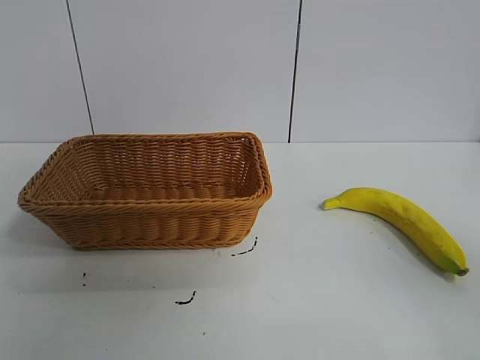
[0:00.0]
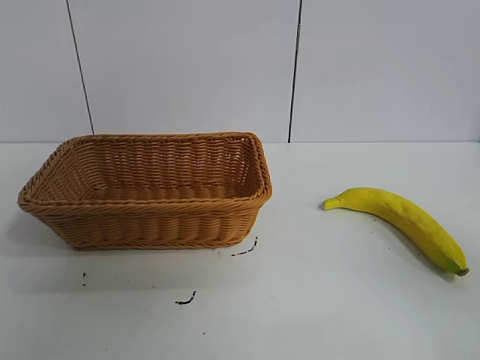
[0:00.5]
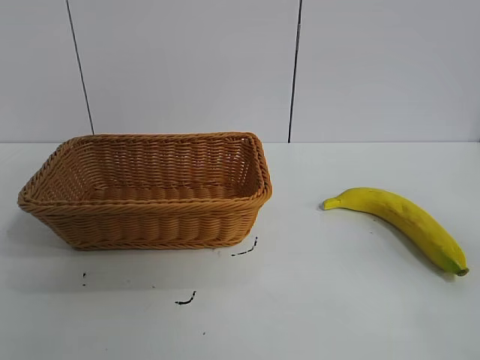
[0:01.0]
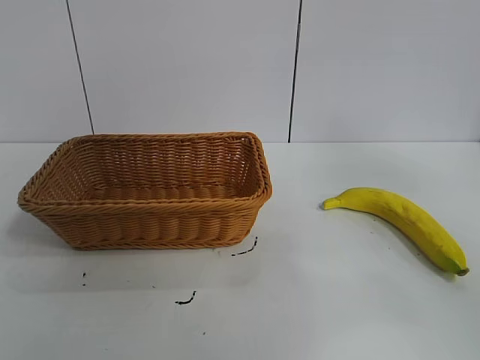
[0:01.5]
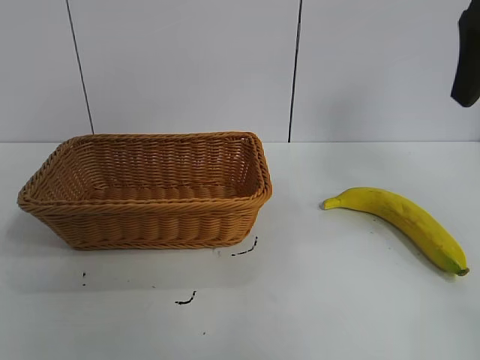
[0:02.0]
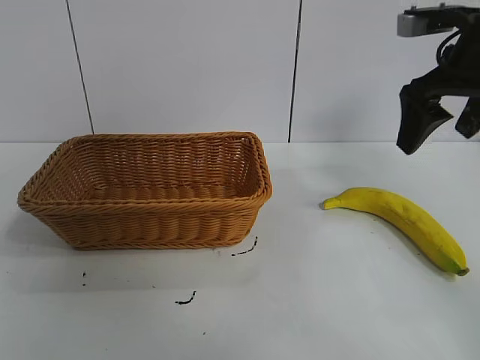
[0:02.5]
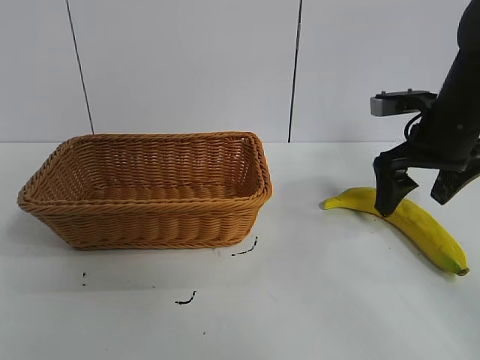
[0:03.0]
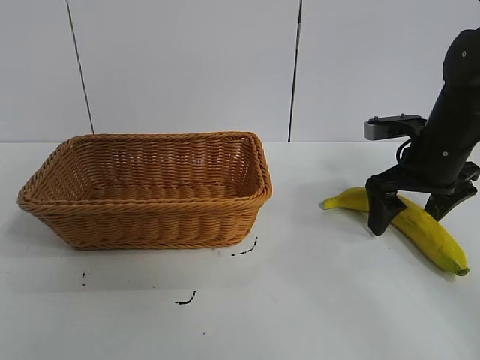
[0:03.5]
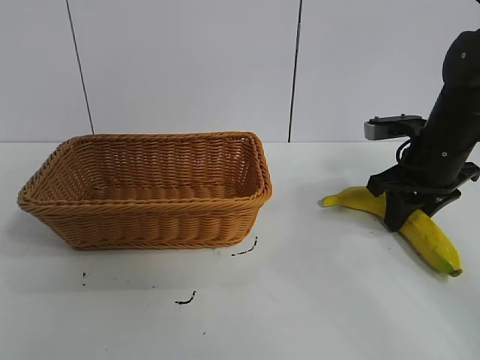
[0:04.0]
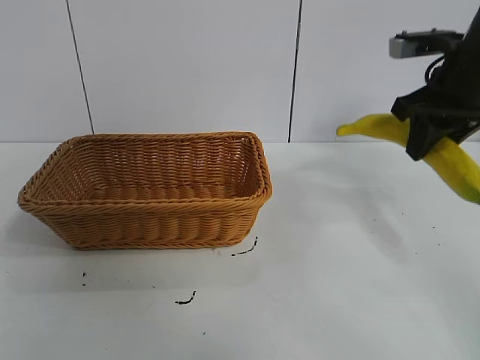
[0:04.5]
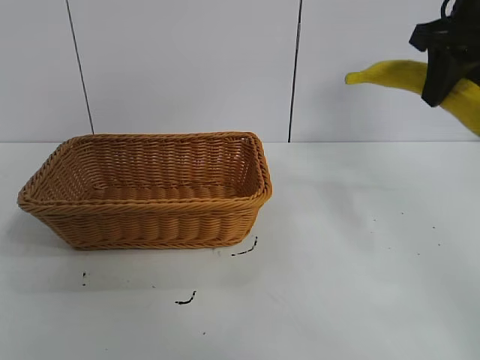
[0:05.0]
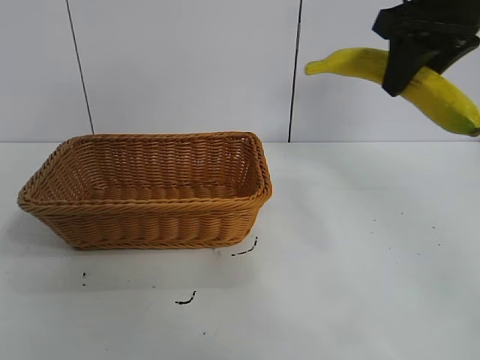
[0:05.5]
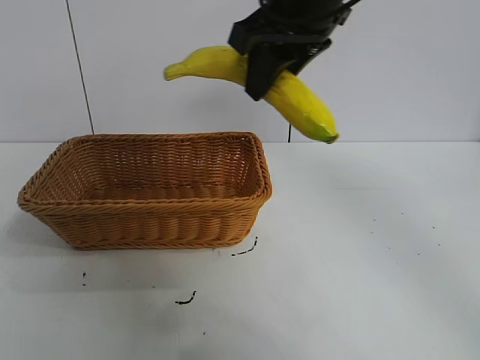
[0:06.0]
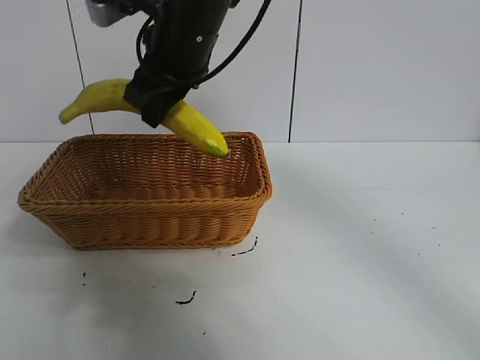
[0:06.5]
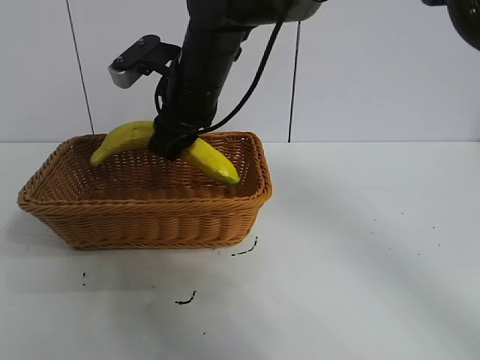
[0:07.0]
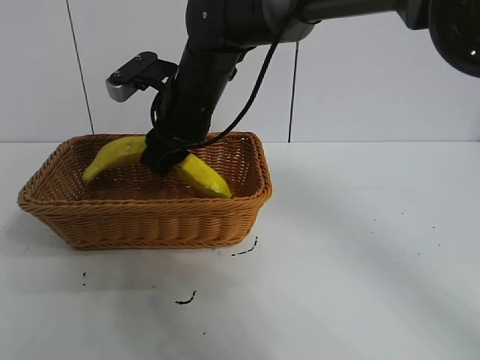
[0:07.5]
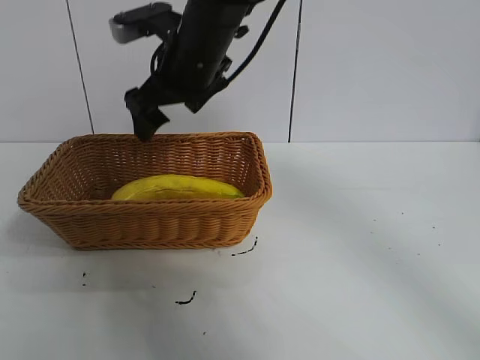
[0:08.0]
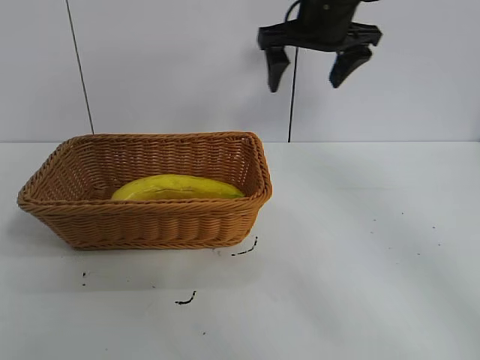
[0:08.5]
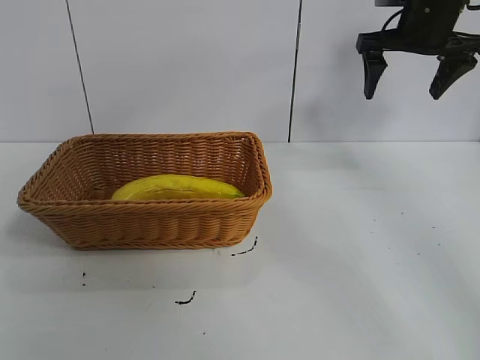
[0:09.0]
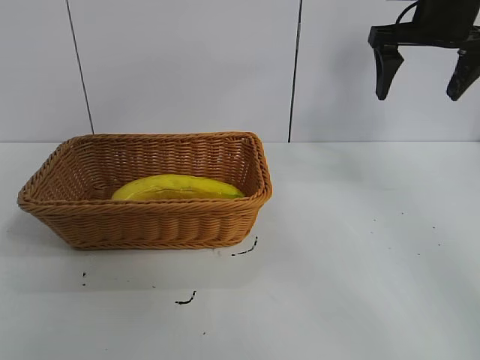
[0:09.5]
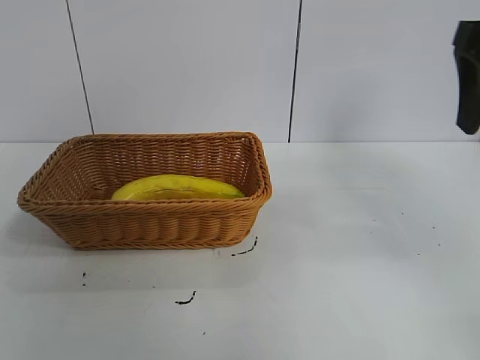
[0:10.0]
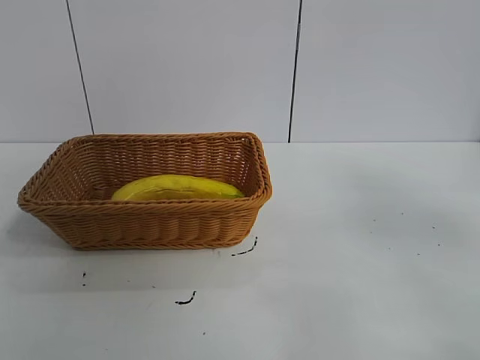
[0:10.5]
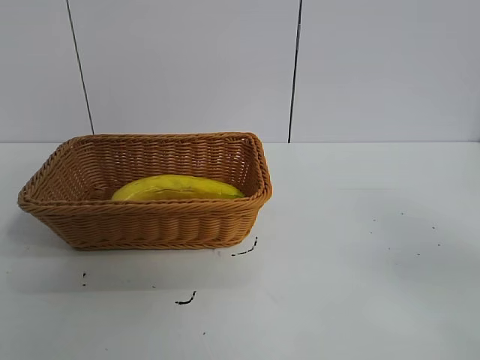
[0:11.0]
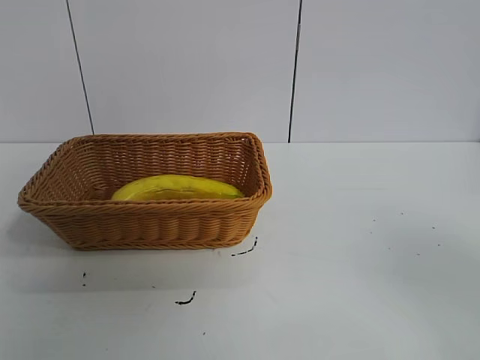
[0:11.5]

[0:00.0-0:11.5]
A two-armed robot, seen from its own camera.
Task of the whole recording: pick up the banana and put it into the basket.
Step, 0:01.0 to 0:04.0: Grasp the banana with right gripper.
Step, 0:04.5 to 0:07.5: Place the banana in the basket with right gripper.

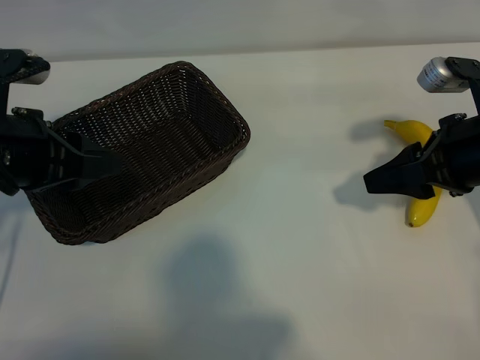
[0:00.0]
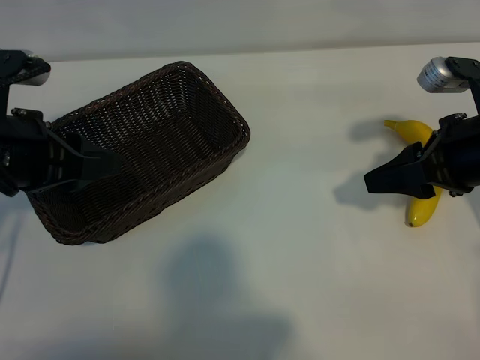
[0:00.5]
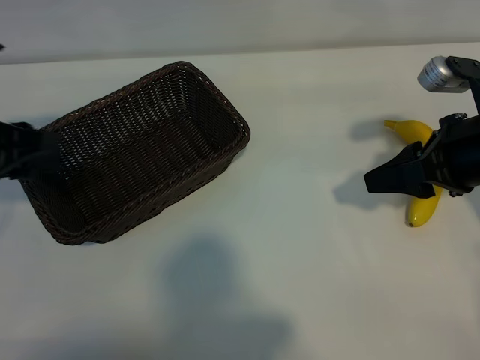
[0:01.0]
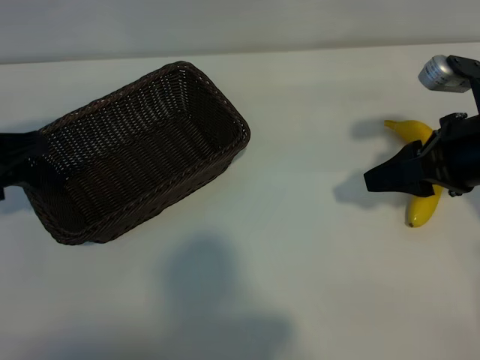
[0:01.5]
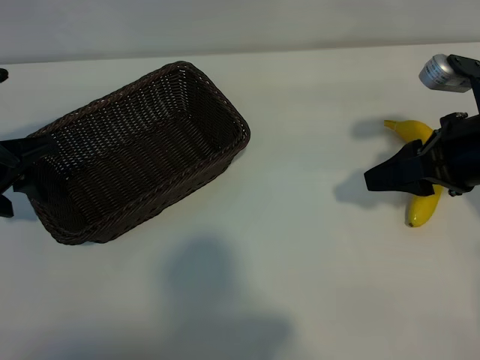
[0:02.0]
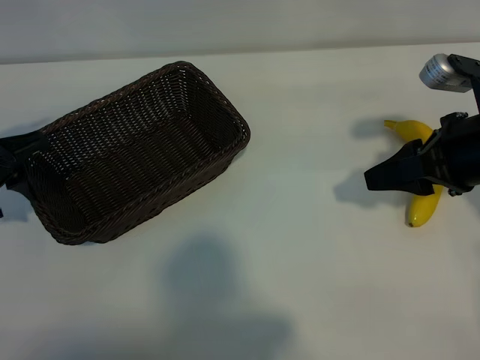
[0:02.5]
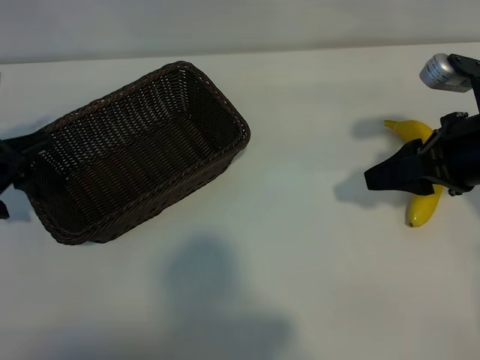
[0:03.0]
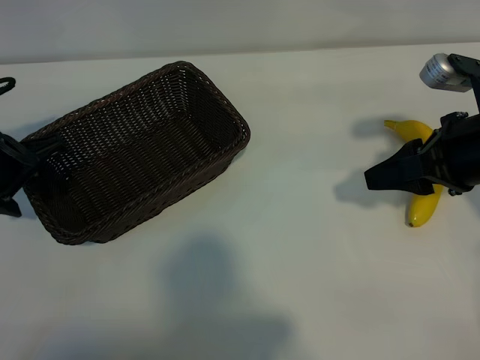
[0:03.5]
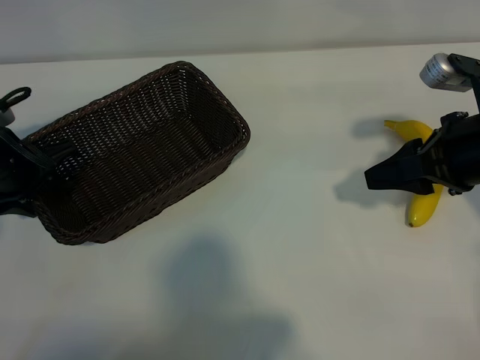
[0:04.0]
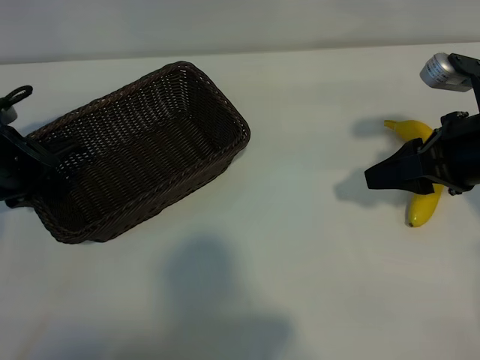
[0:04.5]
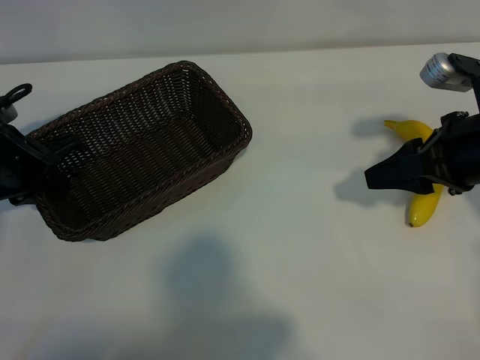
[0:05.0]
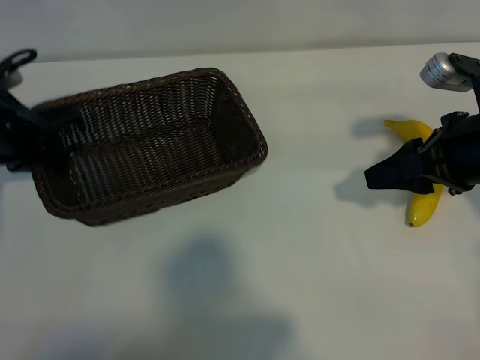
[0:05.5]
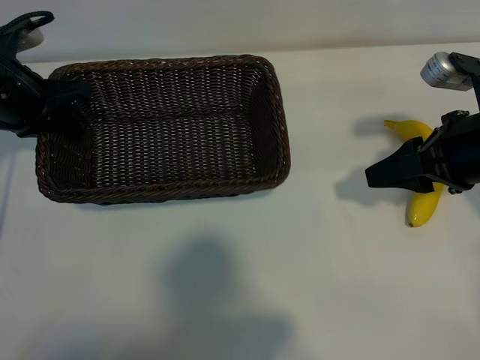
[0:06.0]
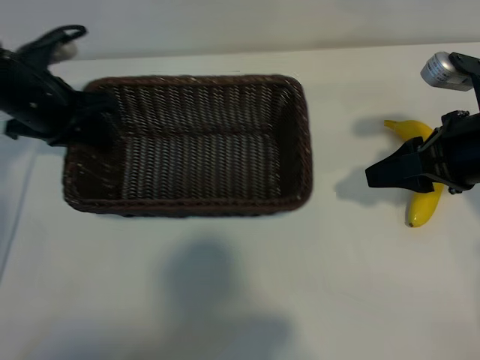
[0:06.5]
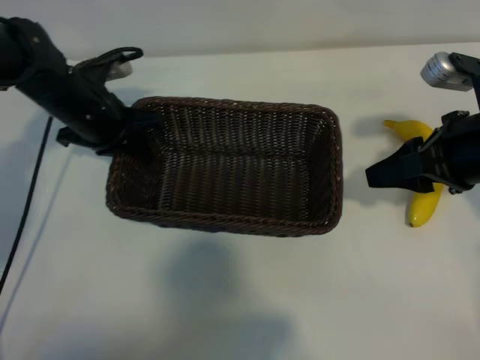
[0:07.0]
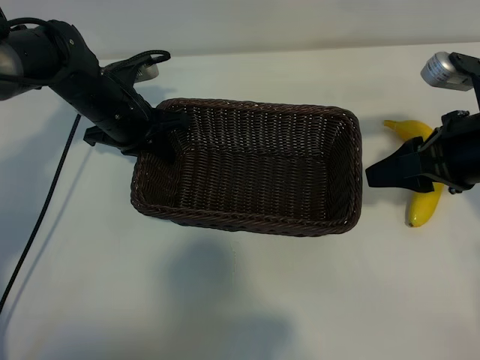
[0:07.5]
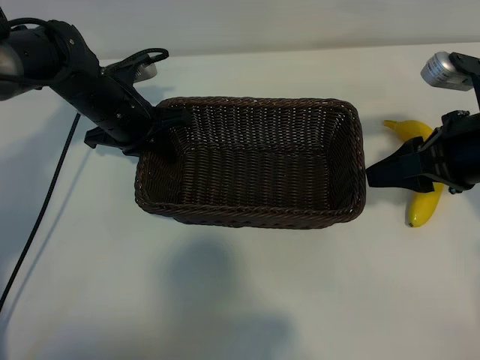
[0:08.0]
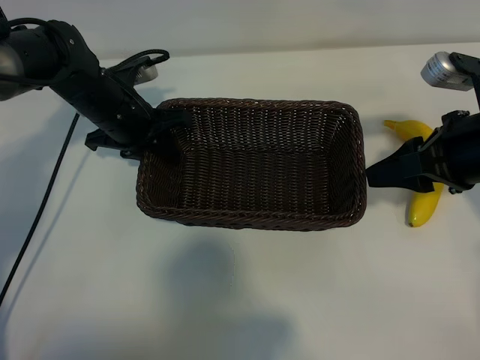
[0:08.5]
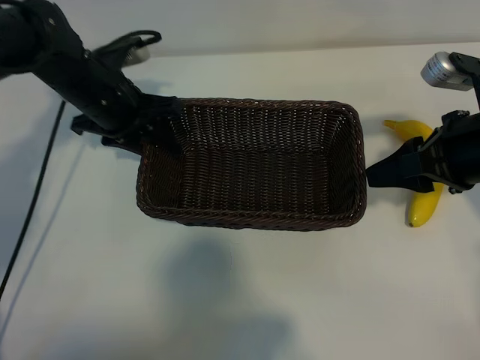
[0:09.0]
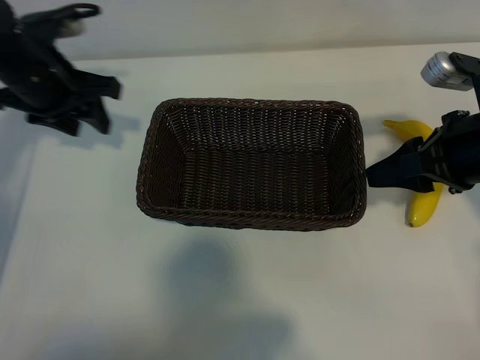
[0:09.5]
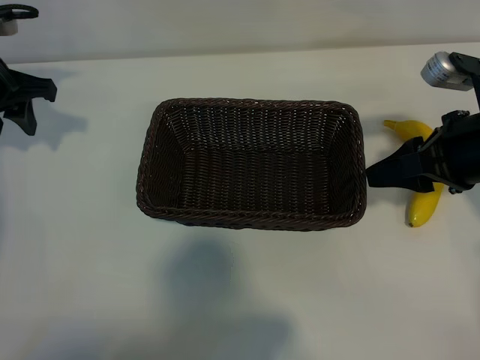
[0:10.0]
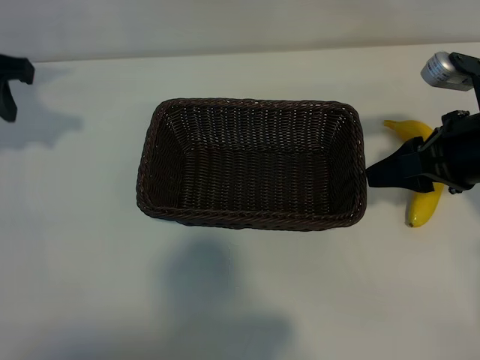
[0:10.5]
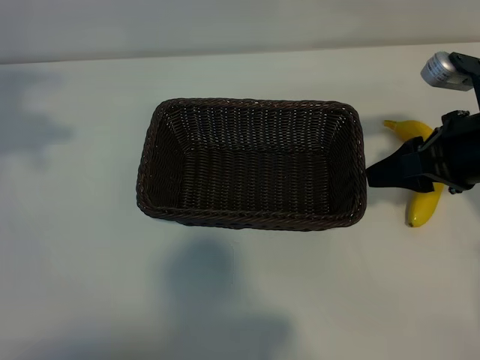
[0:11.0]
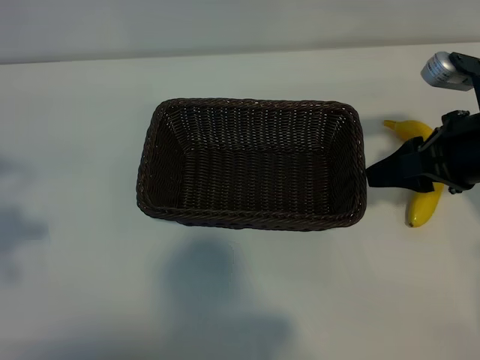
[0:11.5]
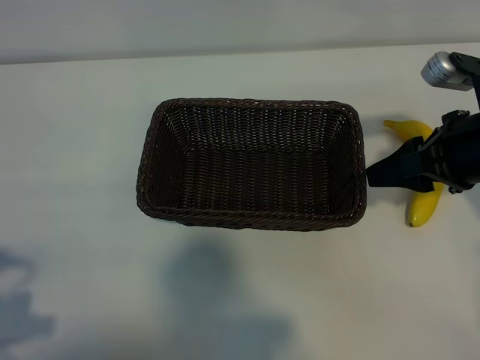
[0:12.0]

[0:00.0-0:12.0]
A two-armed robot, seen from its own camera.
Task of the whole recording: pick up the banana and put it into the basket.
Step, 0:00.0 to 0:04.5: Grasp the basket with the left gripper.
Step, 0:05.0 to 0:09.0: Place the basket in the center of the table with the left gripper.

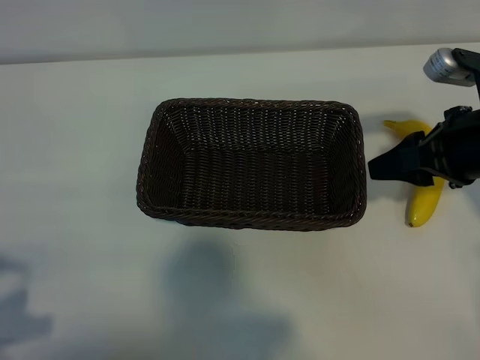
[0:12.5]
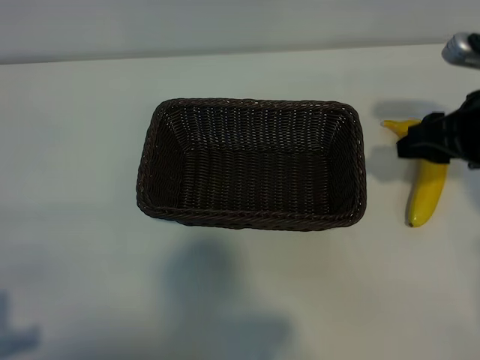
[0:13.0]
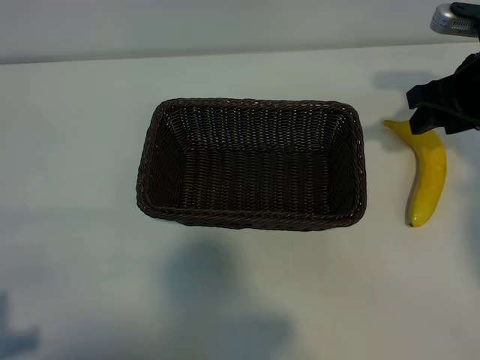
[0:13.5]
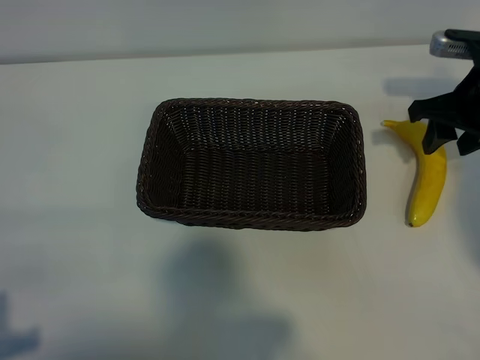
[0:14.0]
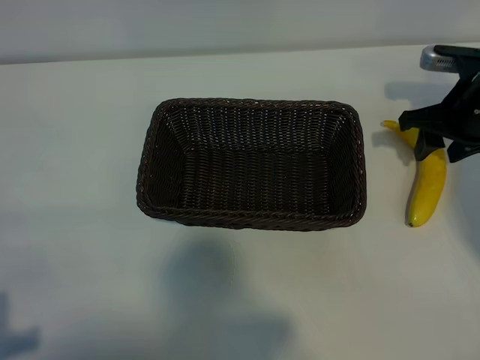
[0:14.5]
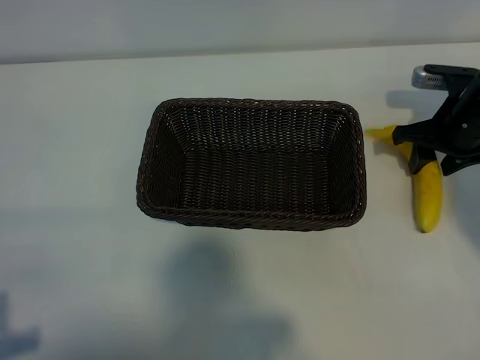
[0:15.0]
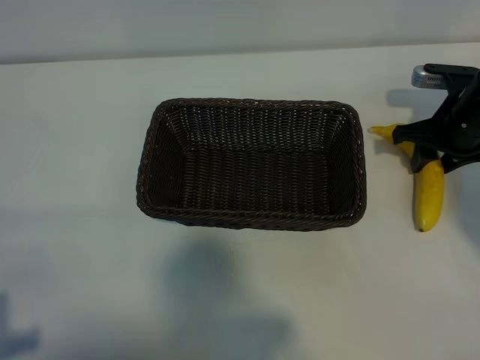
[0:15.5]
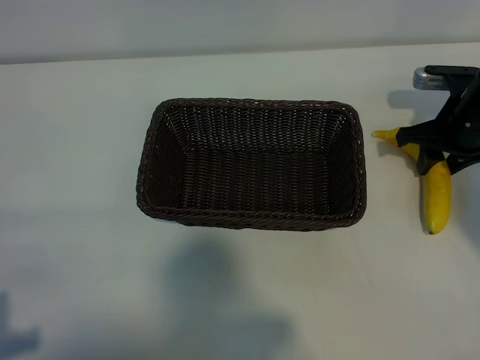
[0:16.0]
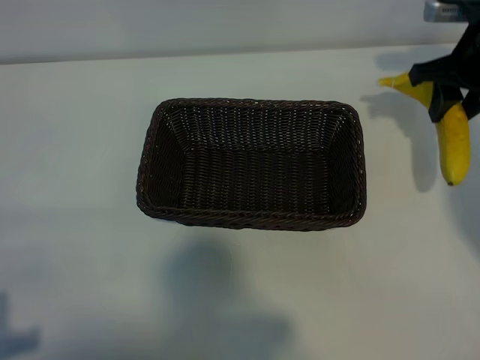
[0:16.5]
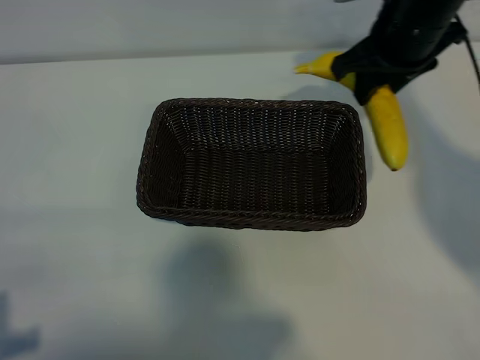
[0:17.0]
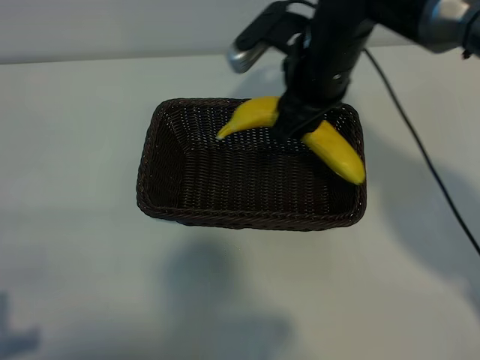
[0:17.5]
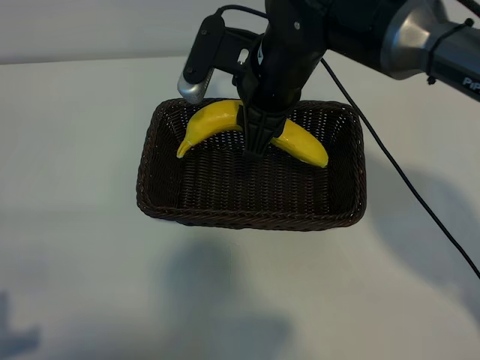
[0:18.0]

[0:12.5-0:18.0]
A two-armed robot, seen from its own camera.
Task of the whole recording: pick up the banana and put it into the basket.
Step, 0:12.5 to 0:15.5: Grasp the banana with right gripper.
